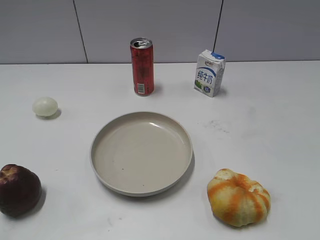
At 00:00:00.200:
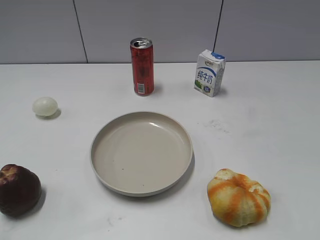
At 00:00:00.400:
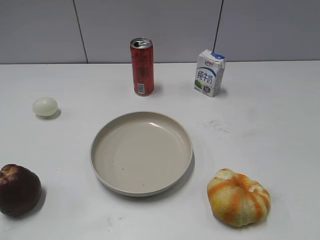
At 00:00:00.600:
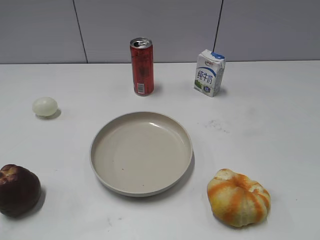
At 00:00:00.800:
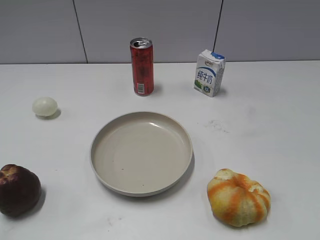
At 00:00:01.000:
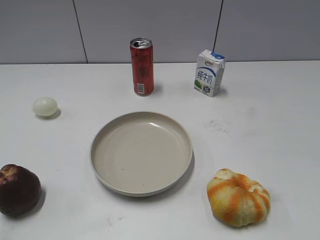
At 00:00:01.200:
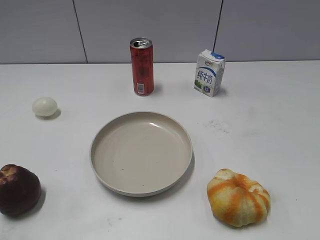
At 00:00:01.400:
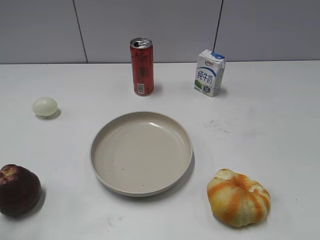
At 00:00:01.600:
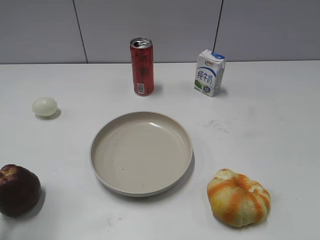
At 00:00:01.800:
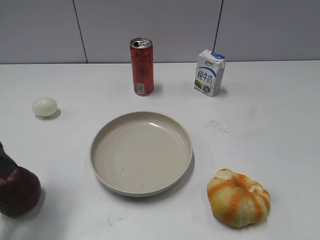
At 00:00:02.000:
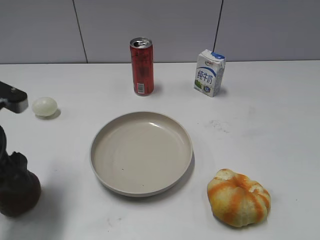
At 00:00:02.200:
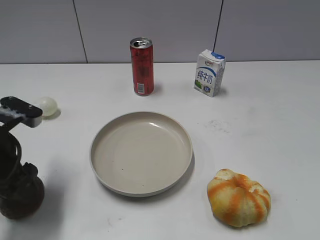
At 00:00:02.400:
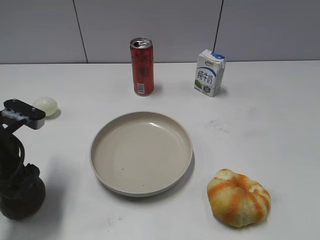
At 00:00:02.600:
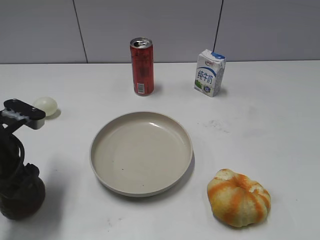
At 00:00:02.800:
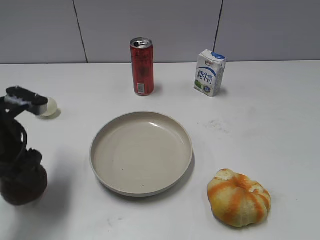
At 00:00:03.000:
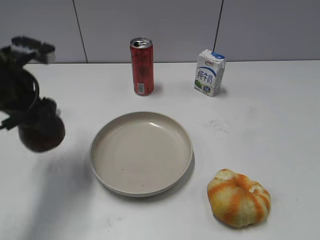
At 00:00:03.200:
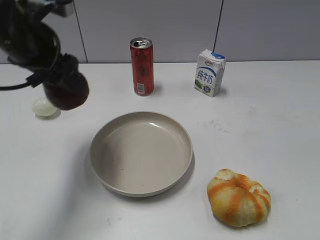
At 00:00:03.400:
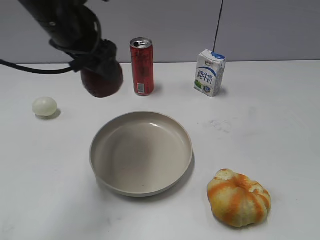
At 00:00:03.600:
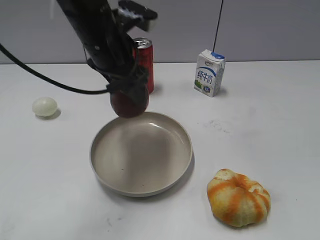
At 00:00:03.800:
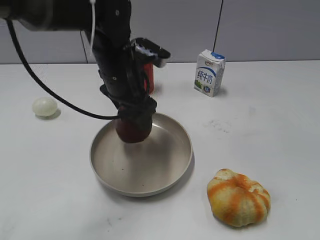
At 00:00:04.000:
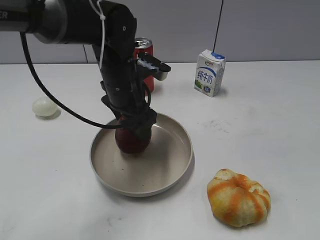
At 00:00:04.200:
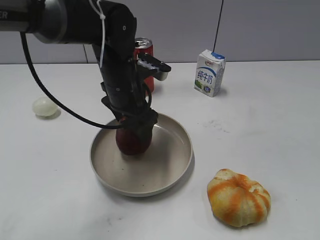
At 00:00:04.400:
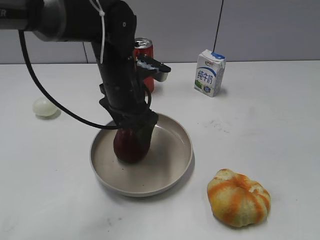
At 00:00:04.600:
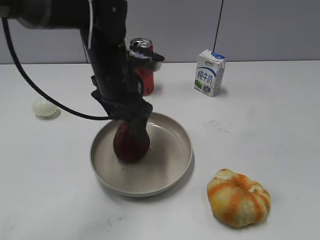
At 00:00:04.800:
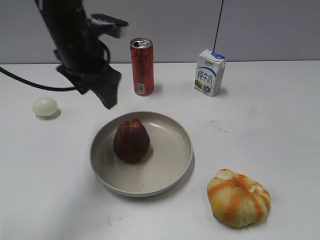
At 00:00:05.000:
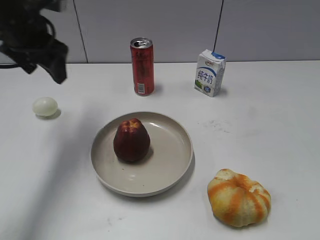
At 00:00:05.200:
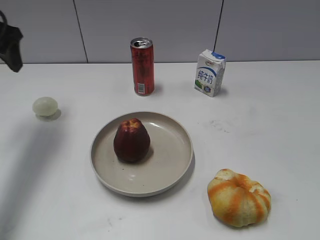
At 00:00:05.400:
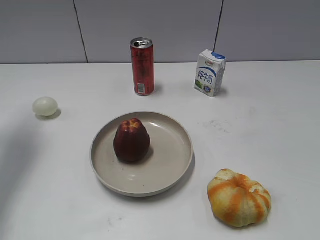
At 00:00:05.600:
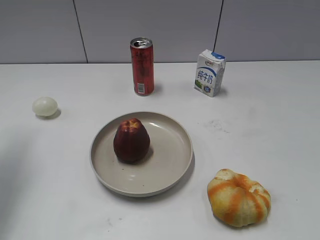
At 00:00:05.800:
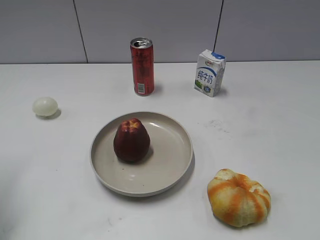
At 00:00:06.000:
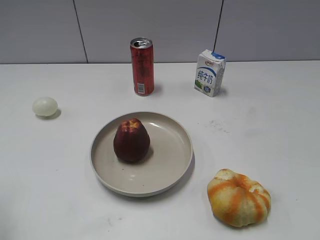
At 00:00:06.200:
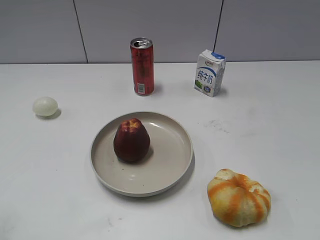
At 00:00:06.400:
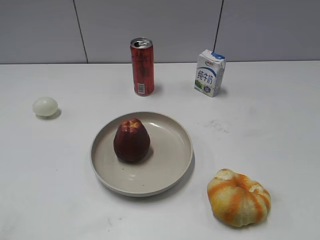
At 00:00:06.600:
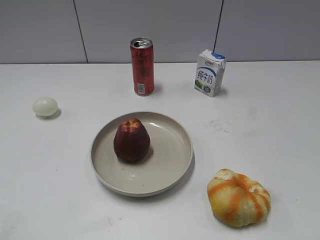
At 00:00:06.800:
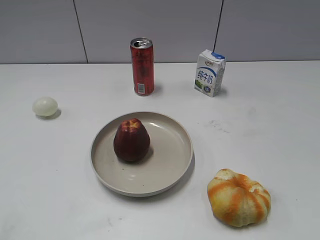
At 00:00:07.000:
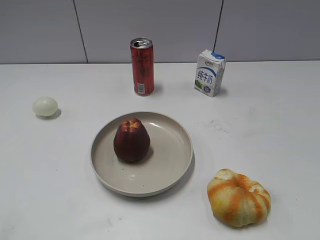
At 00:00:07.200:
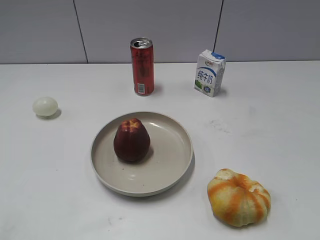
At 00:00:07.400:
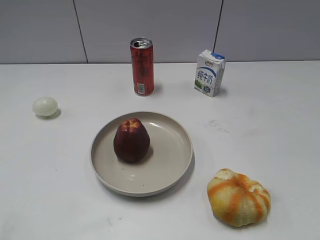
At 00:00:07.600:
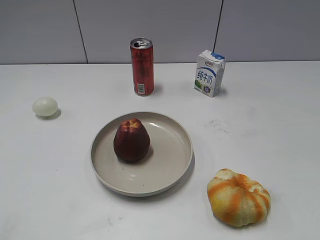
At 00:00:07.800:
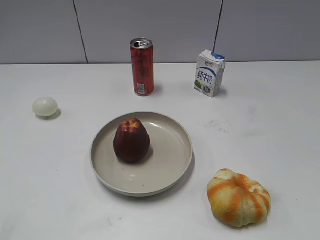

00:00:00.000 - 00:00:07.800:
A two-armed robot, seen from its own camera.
Step, 00:00:00.800 - 00:00:02.600: Grasp the apple with left gripper.
Step, 00:00:02.800 - 00:00:04.600: Place the apple on the plate with left gripper.
00:00:01.600 - 00:00:03.200: The left gripper heads forward and to the right, covering approximately 20 cm.
00:00:03.200 - 00:00:04.600: The left gripper moves to the right and downward, approximately 15 cm.
00:00:04.600 - 00:00:06.200: The left gripper travels to the left and backward by roughly 35 cm.
